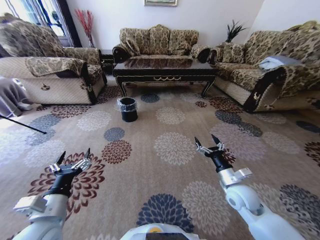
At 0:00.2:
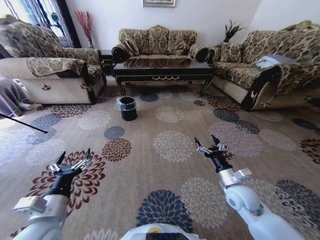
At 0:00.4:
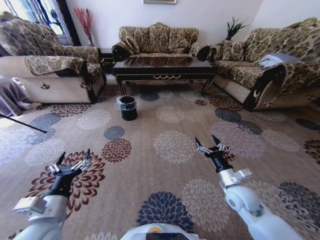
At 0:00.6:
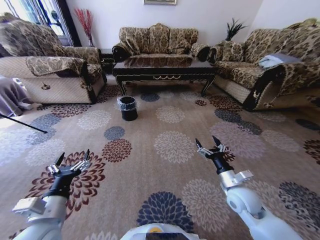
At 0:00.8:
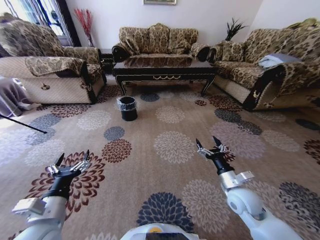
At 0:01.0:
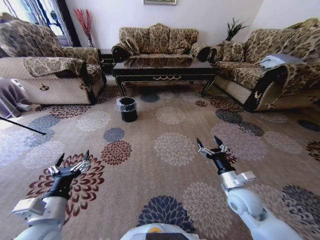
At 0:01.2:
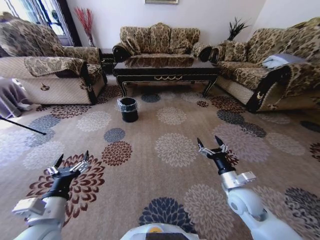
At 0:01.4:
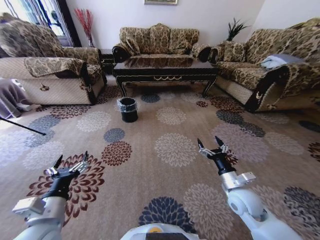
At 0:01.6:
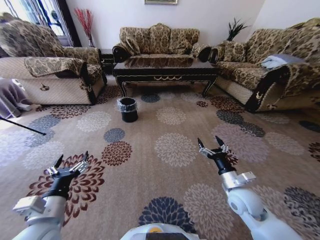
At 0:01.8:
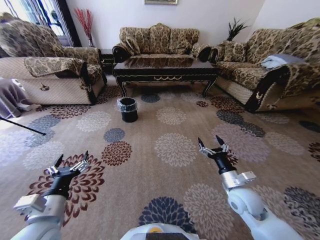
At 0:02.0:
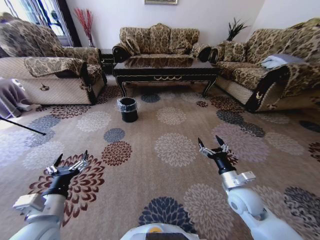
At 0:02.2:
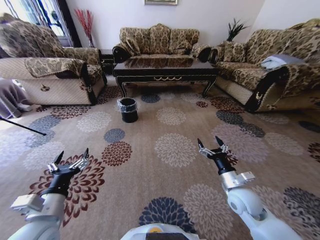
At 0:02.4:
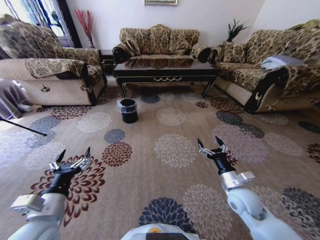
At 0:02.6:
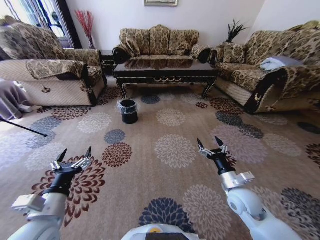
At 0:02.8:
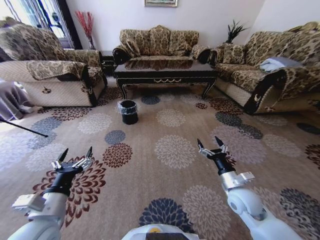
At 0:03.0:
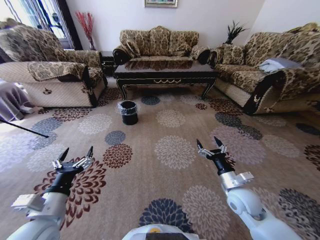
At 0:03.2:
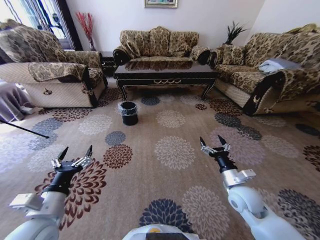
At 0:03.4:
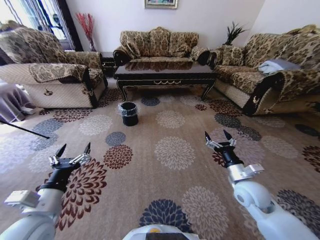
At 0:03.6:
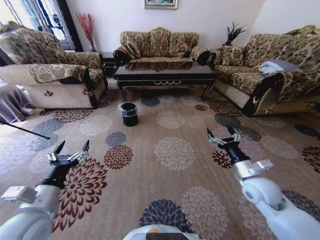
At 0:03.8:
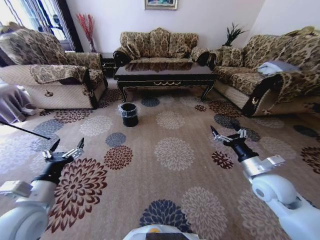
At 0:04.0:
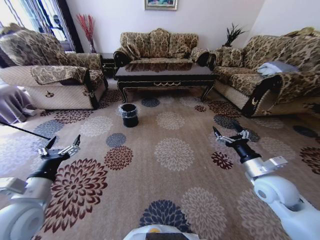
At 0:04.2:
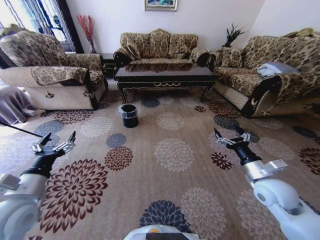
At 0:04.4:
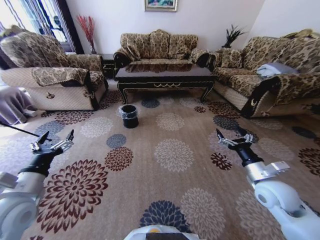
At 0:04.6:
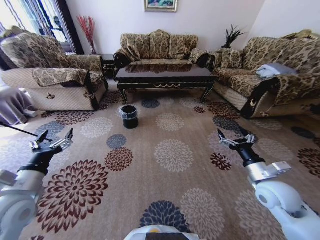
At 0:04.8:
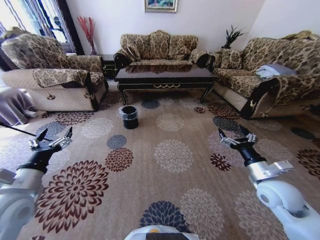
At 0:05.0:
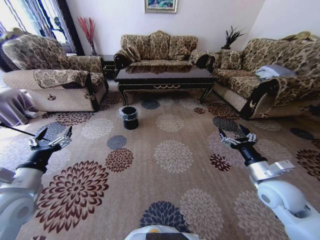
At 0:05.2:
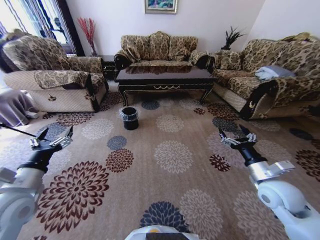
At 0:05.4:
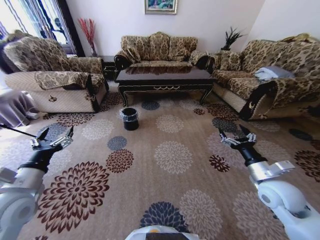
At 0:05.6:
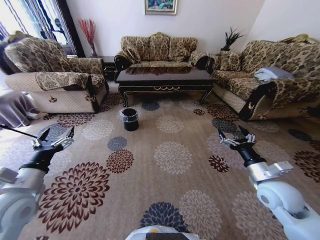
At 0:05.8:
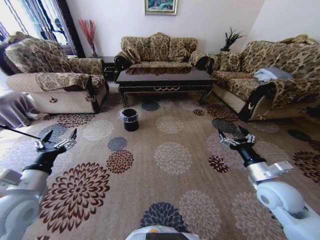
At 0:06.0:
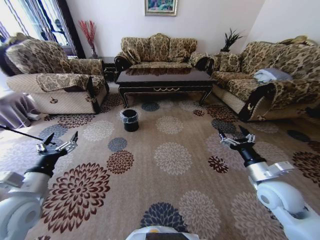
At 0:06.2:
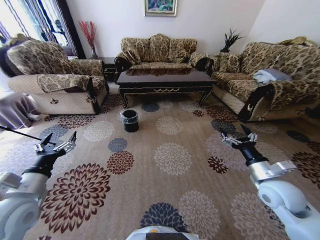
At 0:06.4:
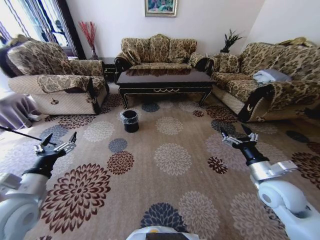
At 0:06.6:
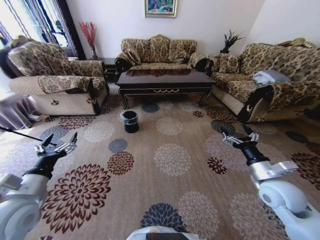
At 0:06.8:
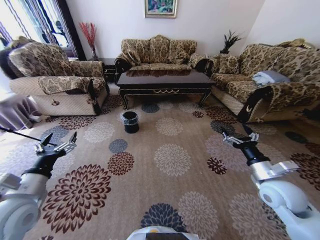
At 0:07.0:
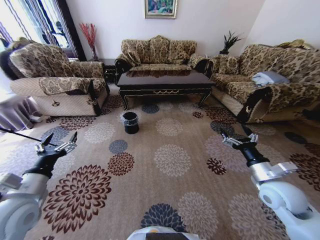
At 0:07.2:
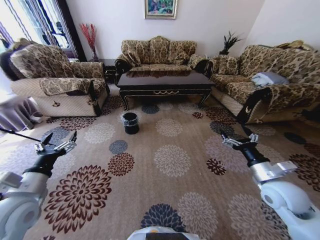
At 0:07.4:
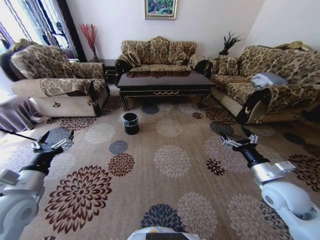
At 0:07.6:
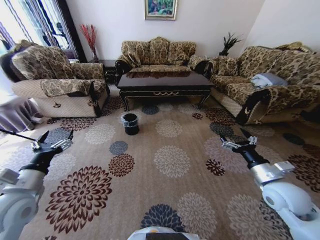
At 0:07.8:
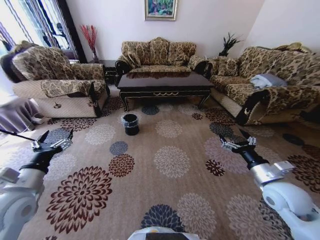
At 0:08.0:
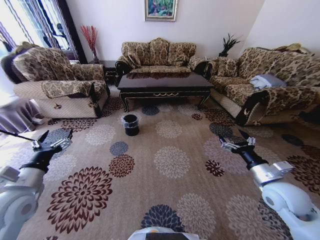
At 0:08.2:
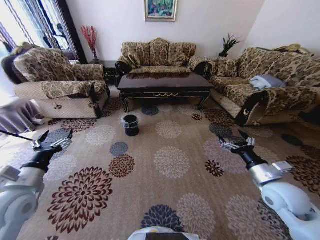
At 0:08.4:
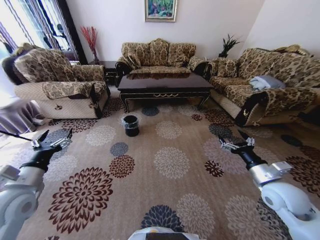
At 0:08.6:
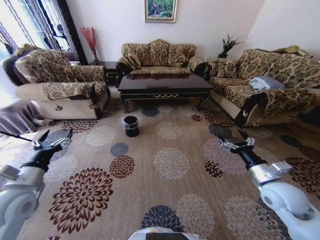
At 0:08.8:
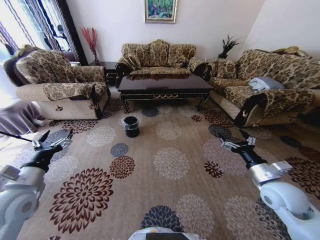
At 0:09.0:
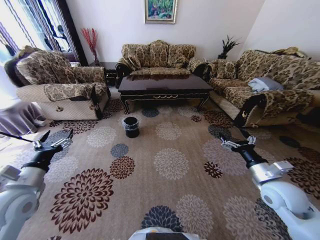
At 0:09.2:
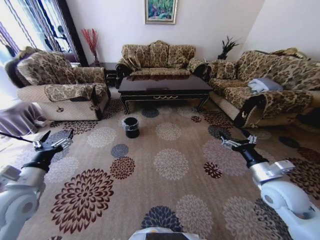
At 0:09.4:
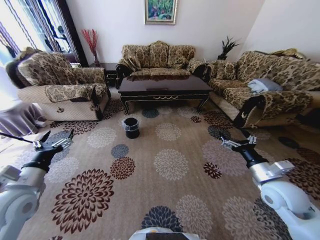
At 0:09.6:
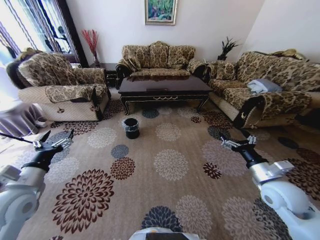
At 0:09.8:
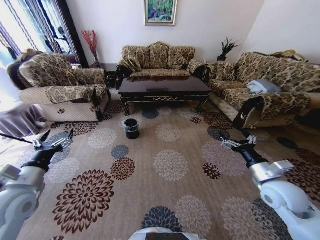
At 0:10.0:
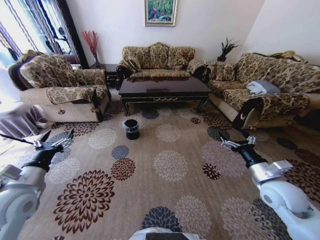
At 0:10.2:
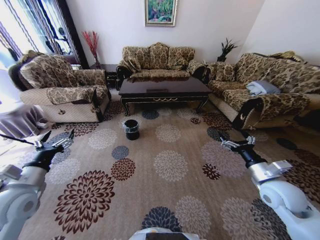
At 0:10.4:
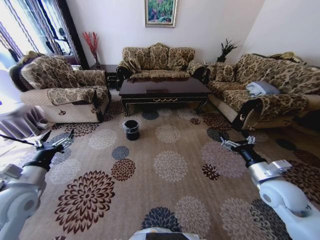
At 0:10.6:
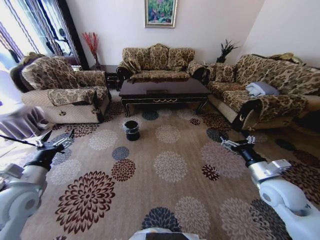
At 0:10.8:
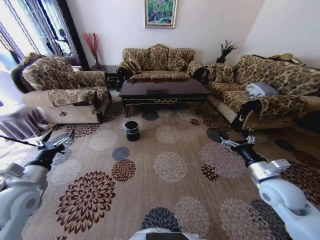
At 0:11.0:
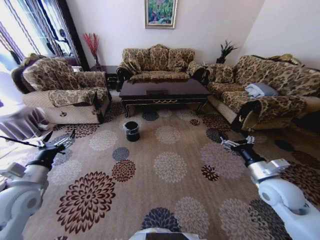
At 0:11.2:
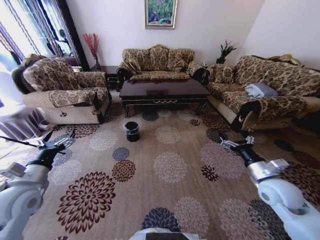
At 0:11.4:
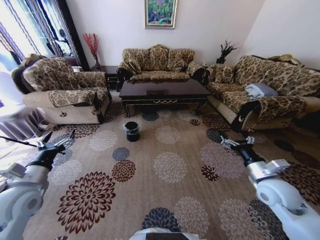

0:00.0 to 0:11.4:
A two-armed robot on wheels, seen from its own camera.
Task of the whole recording: Move to the front of the table and pick up the trash from the floor, then place it into the trash bin.
0:00.0 to 0:01.4: Both grippers stay about where they are.
0:01.4 to 0:02.8: The grippers stay close to where they were, moving slightly.
0:02.8 to 0:04.2: The left gripper shifts roughly 5 cm to the left, while the right gripper shifts about 10 cm upward and to the right.

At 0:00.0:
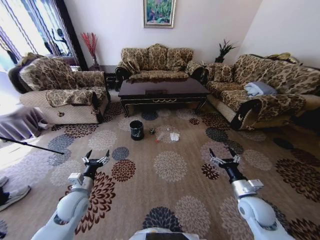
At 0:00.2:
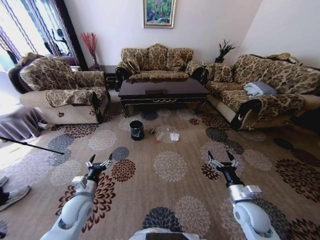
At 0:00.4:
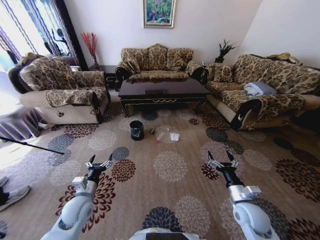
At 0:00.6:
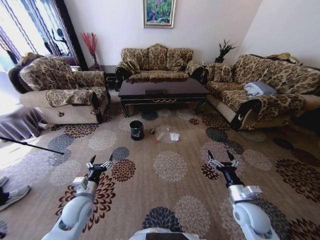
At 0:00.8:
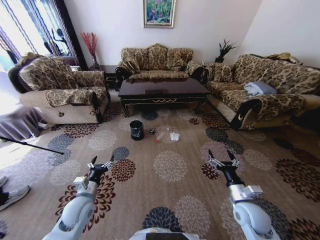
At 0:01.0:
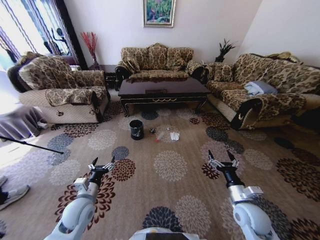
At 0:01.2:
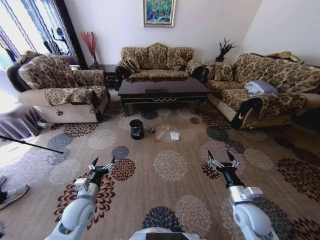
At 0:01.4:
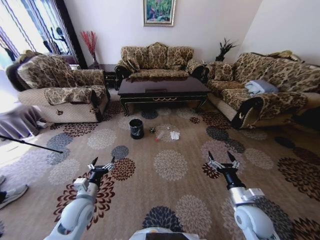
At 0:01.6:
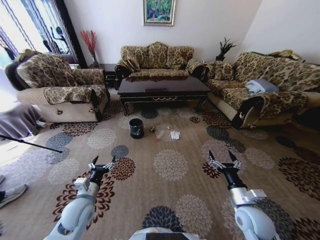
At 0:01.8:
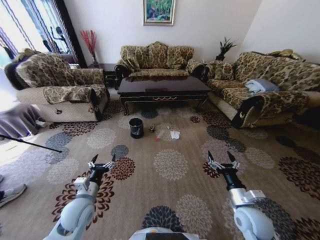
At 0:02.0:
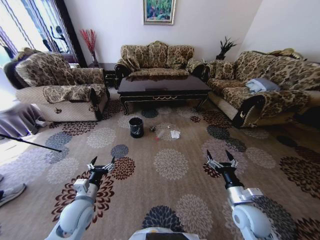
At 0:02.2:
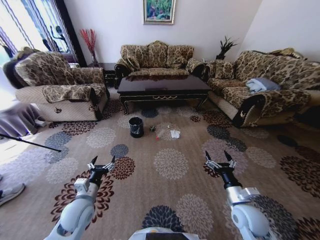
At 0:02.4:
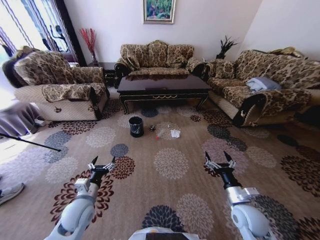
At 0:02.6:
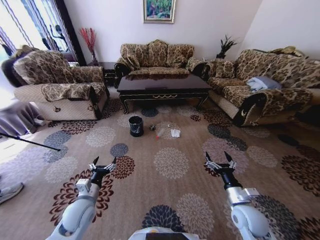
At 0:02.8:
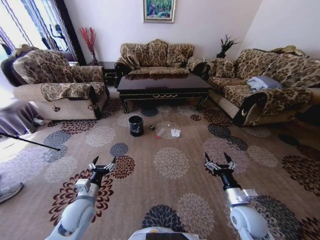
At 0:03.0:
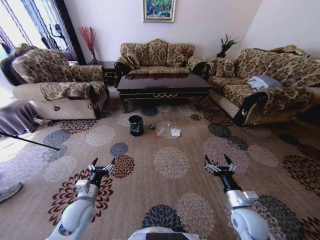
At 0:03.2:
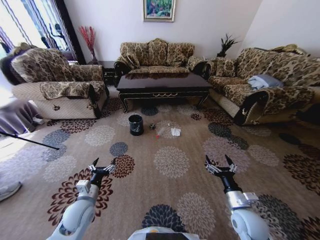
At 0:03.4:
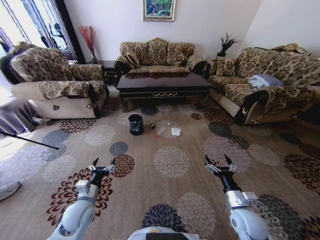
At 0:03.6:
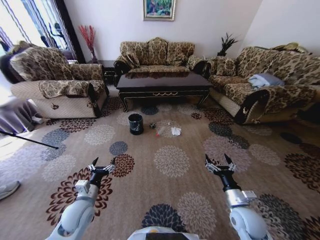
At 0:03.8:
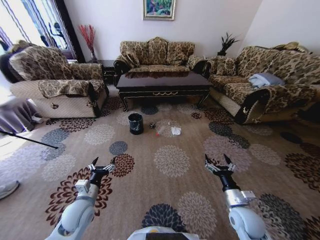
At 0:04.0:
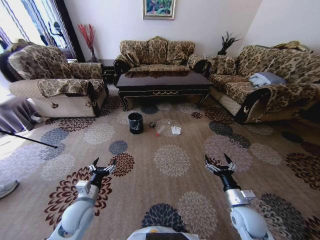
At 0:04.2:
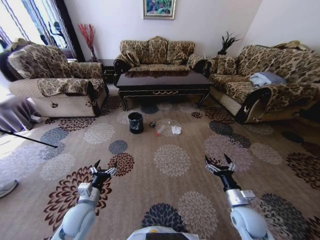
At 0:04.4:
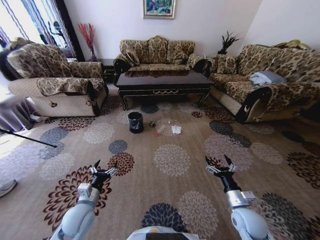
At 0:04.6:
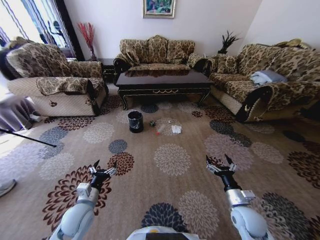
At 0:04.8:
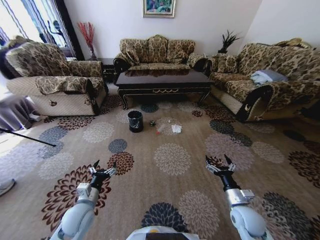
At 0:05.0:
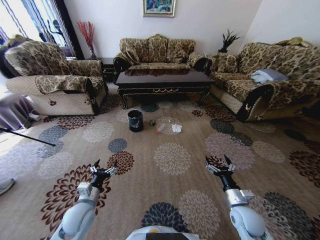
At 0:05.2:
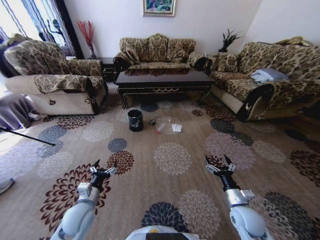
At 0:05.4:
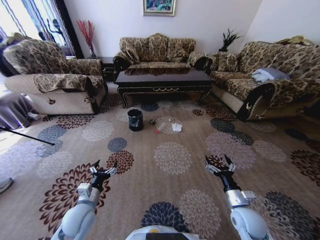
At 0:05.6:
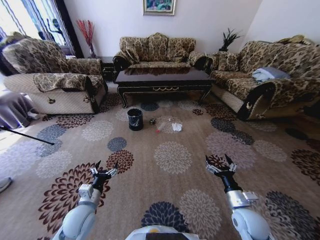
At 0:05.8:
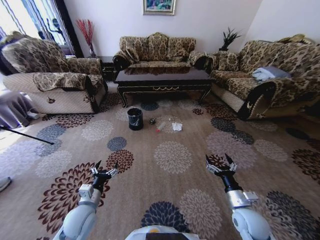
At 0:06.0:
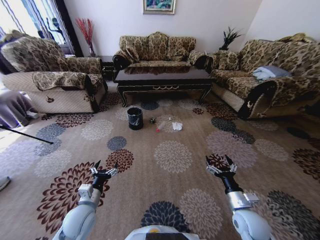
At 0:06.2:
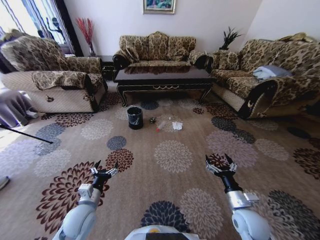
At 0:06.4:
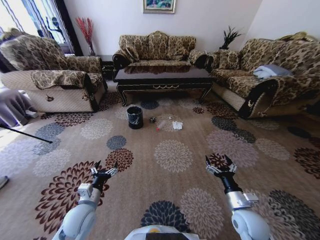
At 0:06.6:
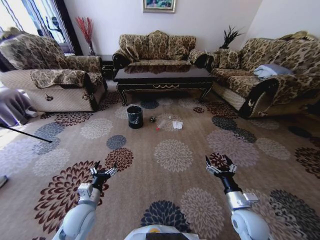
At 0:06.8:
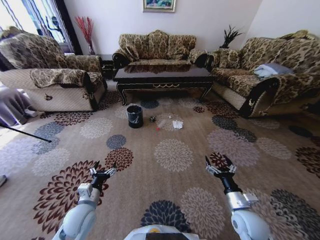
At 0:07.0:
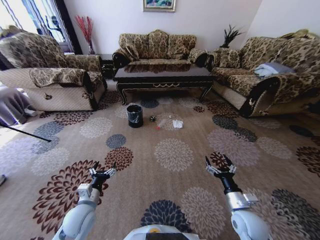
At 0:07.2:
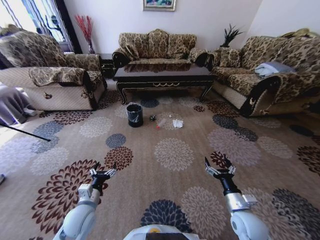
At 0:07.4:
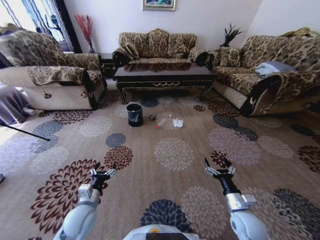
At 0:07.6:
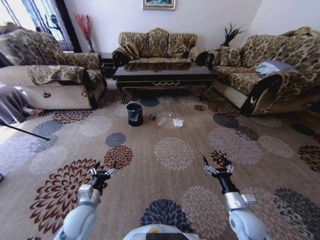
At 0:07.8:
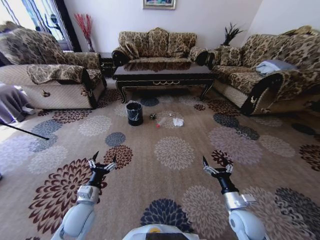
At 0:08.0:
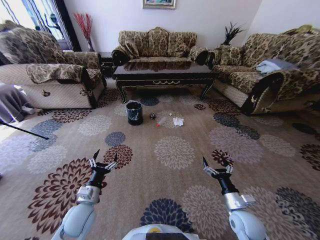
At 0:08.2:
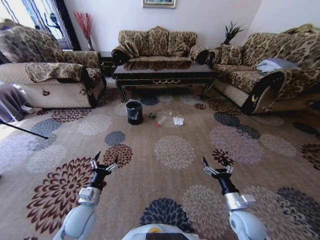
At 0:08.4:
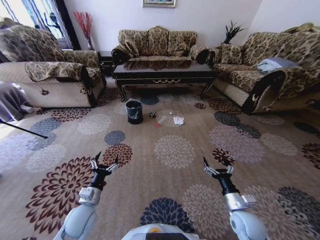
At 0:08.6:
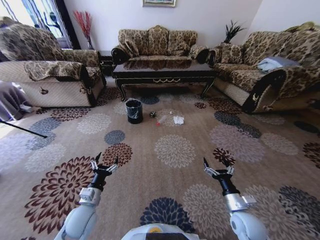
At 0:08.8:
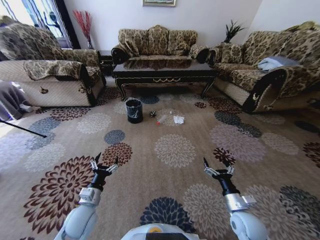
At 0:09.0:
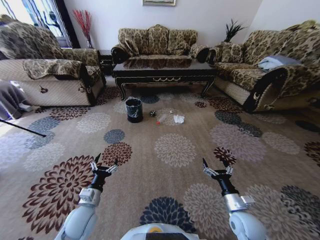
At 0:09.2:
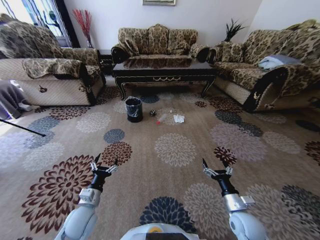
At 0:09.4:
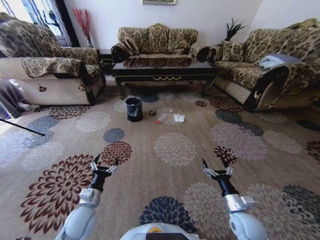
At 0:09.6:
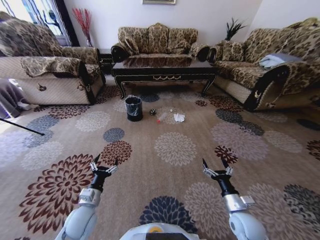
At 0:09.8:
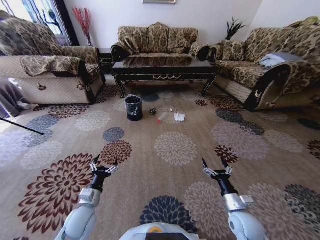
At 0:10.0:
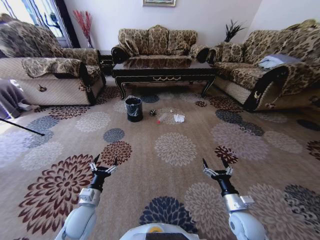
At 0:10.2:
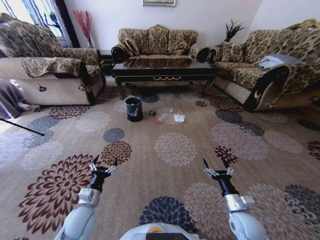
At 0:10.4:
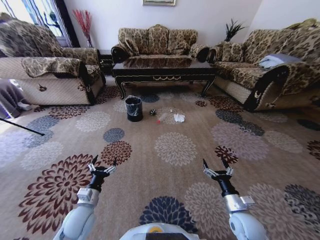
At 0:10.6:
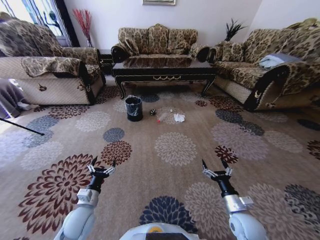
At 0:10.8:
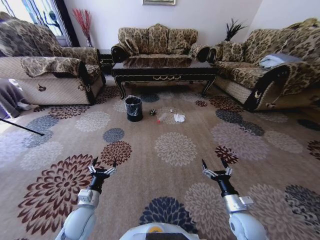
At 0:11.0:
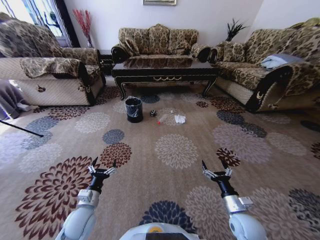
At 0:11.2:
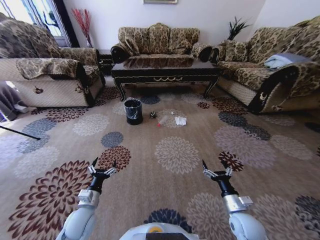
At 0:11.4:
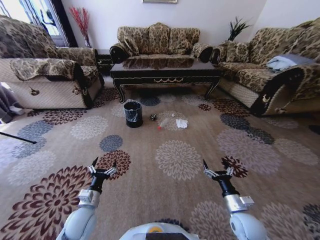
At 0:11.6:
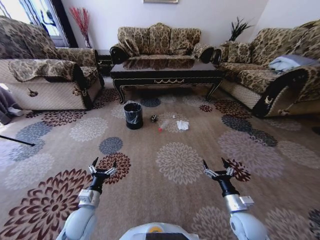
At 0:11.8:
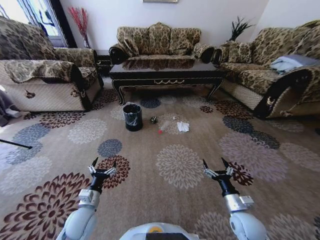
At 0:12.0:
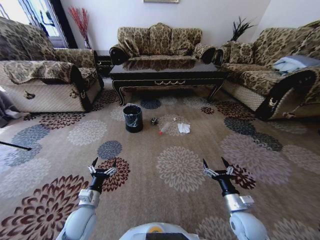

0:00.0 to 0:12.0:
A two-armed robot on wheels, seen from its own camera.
Task of the whole recording: Move to the front of the table and pick up the trash from the floor, then place it into the trash bin.
0:09.0 to 0:10.4: Neither gripper changes place.
